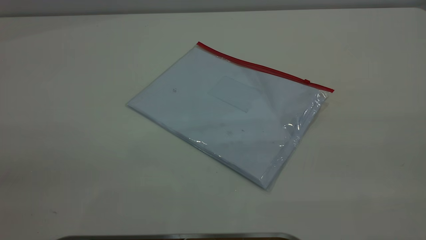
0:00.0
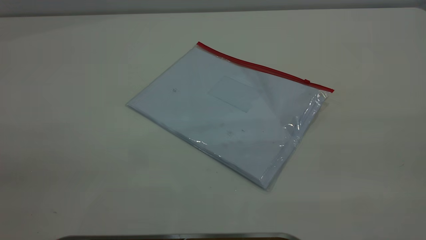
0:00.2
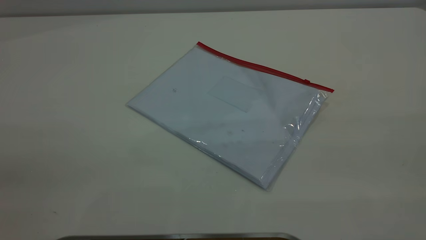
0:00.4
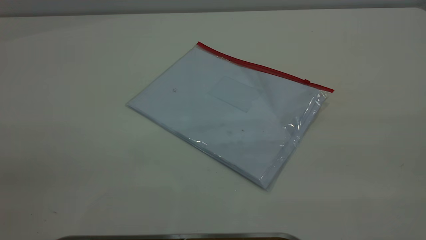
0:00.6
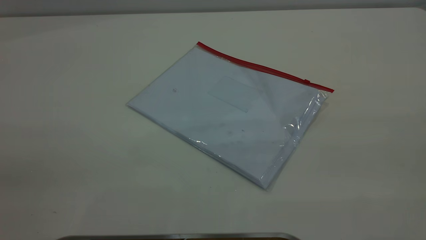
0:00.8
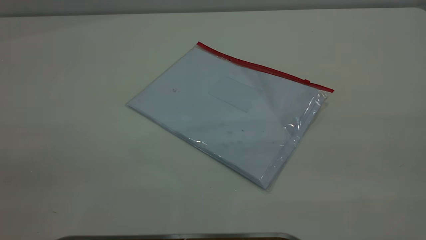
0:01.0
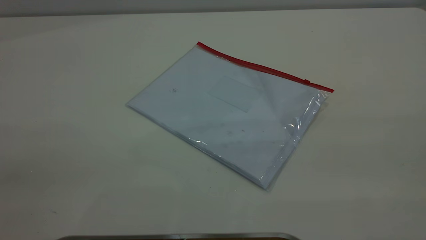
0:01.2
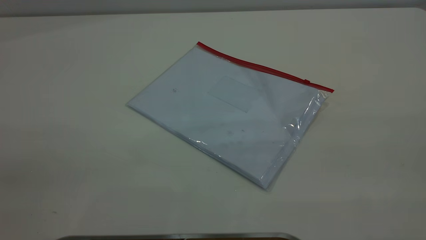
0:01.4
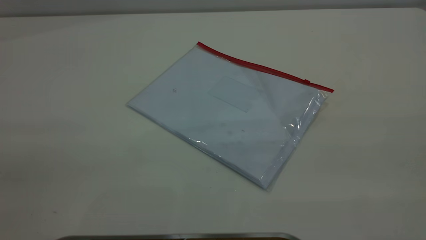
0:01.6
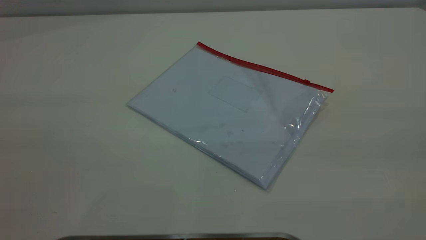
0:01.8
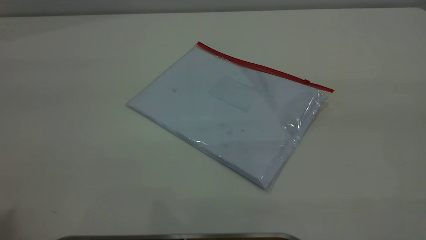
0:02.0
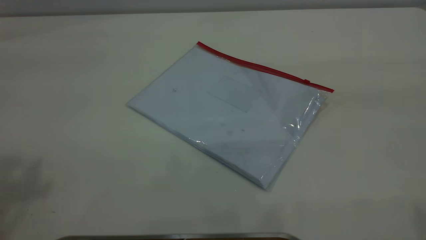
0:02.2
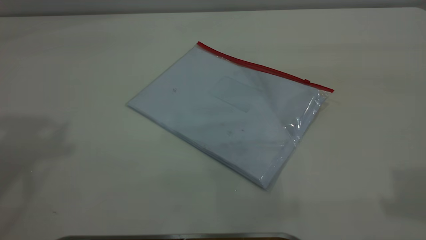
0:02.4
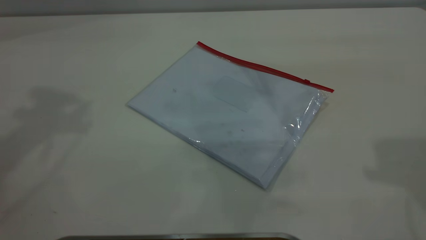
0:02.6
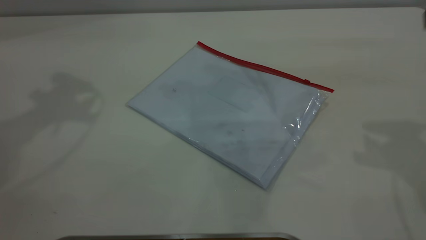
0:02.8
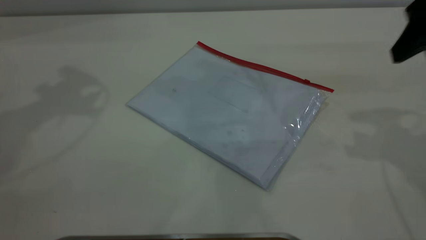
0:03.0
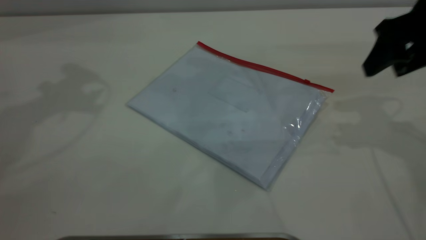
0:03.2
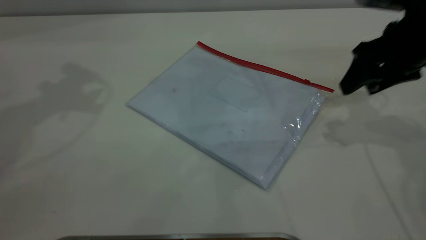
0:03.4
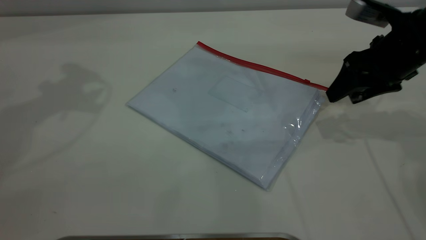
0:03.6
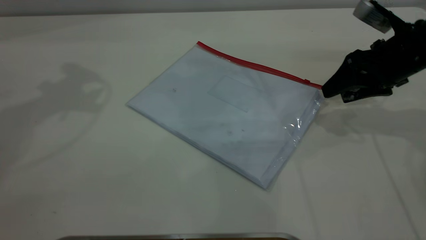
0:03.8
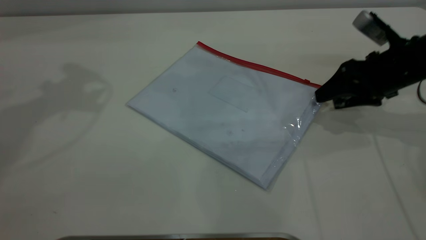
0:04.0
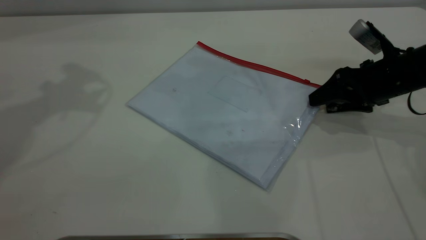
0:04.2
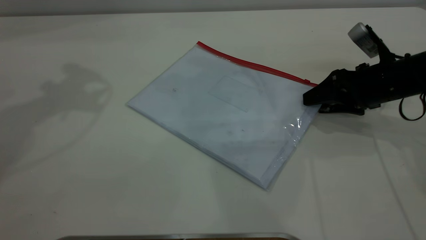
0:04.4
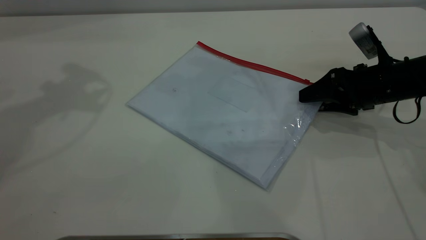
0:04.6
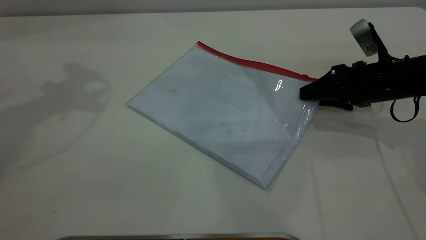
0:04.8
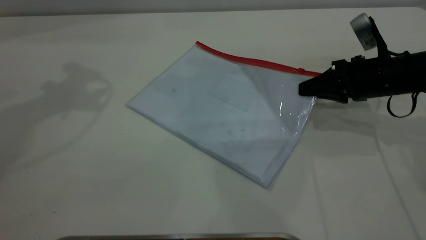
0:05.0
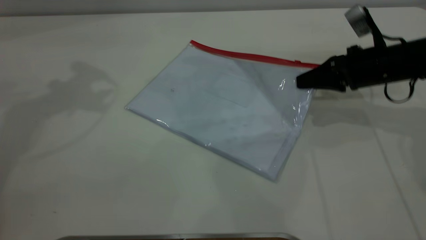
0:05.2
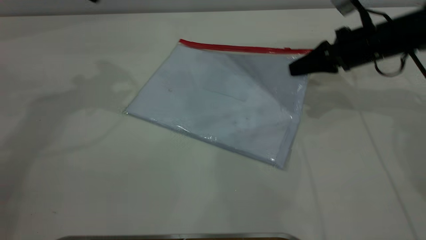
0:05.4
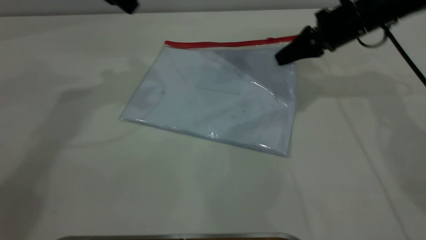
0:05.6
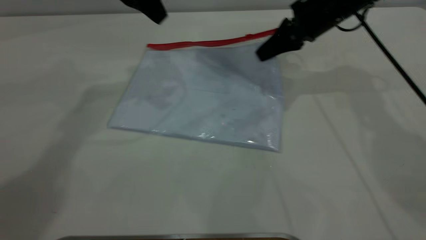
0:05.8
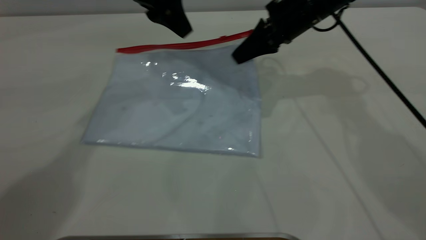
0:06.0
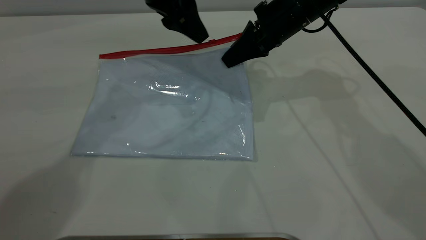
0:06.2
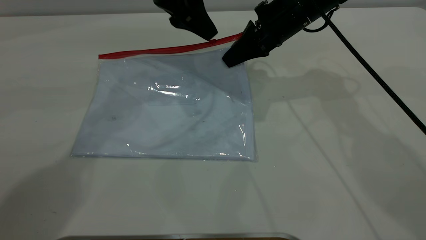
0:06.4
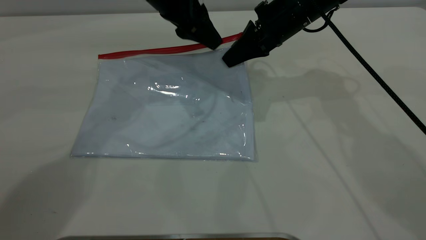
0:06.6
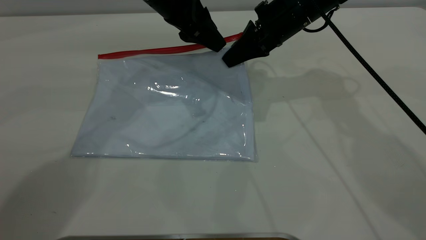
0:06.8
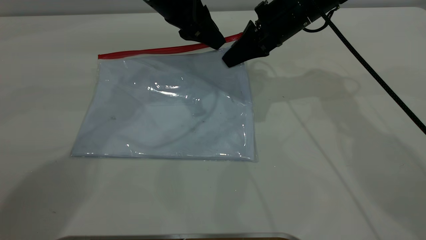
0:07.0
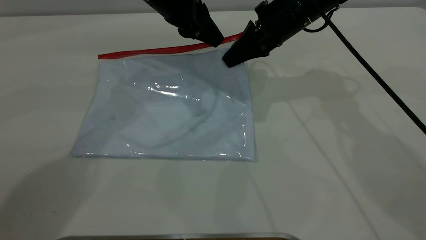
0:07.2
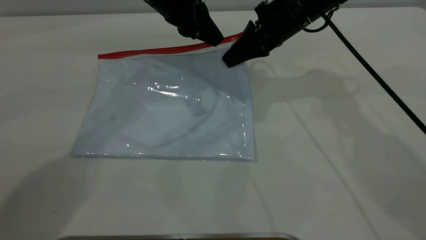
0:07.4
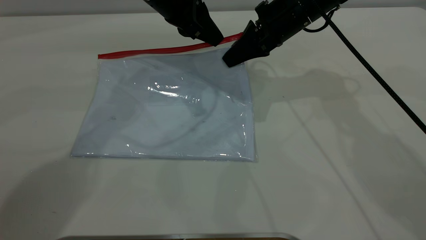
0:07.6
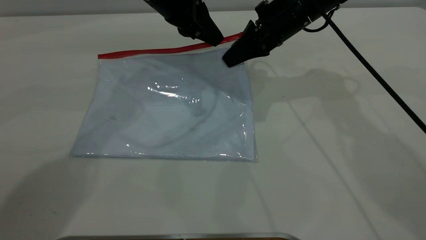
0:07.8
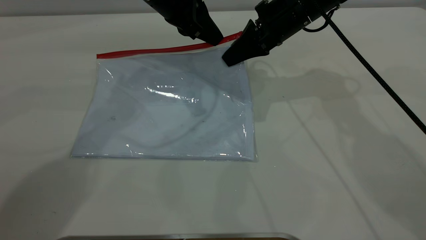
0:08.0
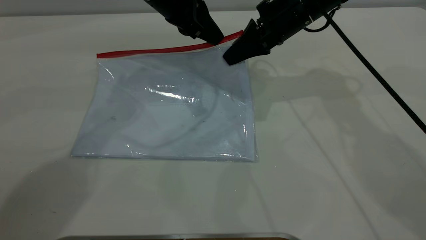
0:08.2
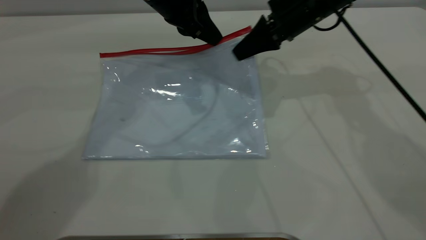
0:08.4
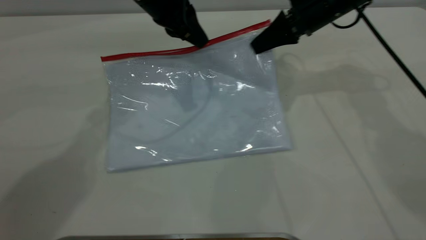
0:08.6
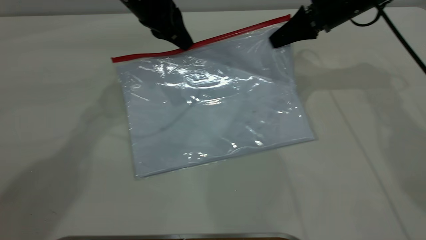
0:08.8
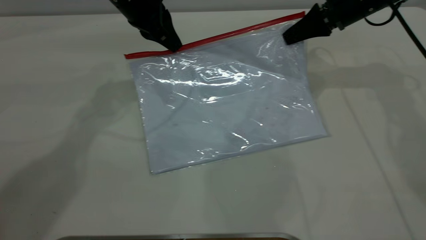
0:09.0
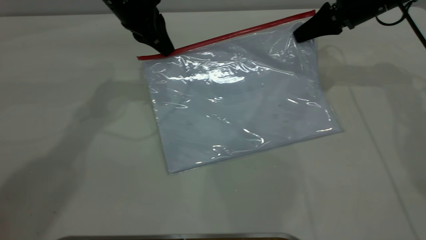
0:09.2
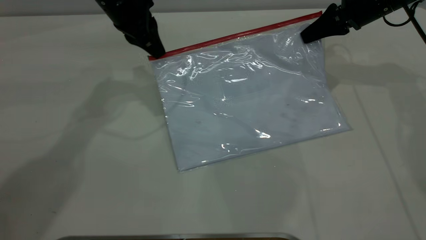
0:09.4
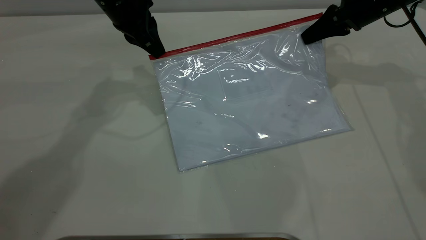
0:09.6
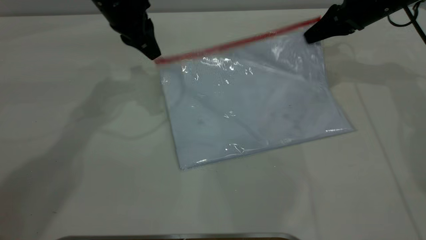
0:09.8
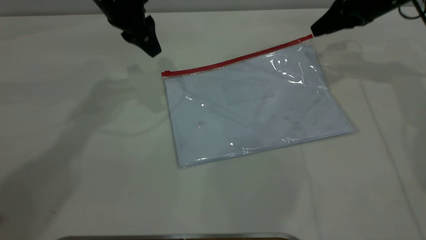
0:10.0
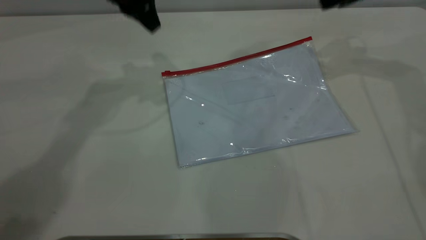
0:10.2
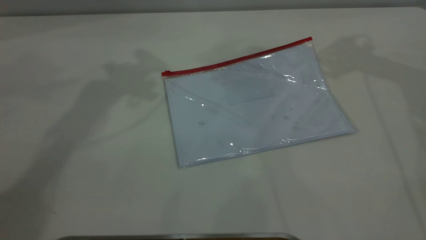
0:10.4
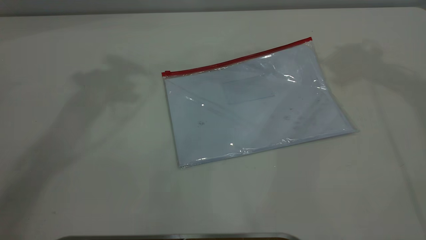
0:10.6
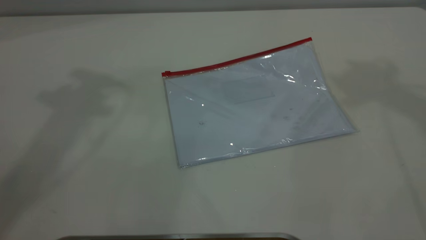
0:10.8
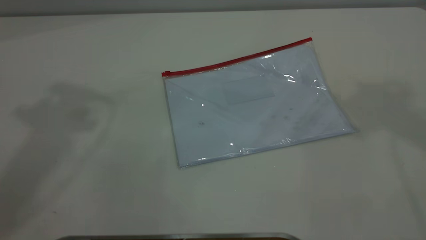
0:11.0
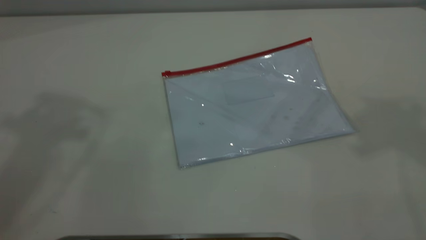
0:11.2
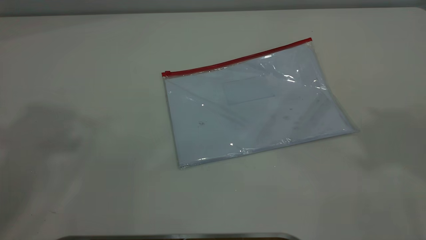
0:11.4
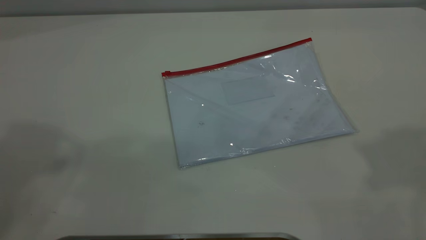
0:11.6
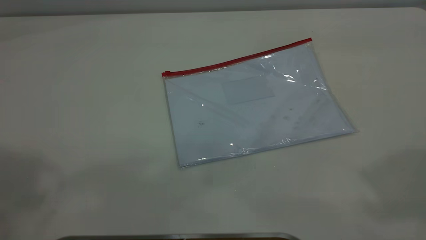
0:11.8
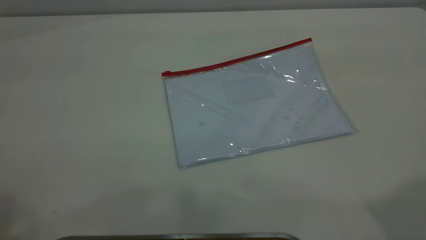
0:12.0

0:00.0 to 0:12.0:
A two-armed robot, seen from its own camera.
Step, 0:00.0 to 0:05.4: Pick up the transparent plastic bag with the right gripper.
Step, 0:05.8 to 0:09.6: Pulling up the zipper on the transparent plastic bag with the left gripper to close it.
Step, 0:10.0 to 0:10.4: Place the transparent plastic bag.
0:01.6 to 0:03.0: The right gripper moves forward and downward, some 35 cm.
0:03.0 to 0:04.4: The right gripper travels downward by about 20 cm.
0:04.4 to 0:06.0: The right gripper goes about 20 cm to the left, forward and upward, and closes, while the left gripper travels to the right and downward by roughly 20 cm.
0:06.0 to 0:07.6: The left gripper closes its fingers.
0:07.6 to 0:09.0: The right gripper is displaced to the right by some 10 cm; the left gripper ends up about 5 cm from where it was.
0:09.0 to 0:10.4: The grippers both shift upward by approximately 15 cm. The left gripper opens its fingers. Meanwhile the right gripper opens its fingers.

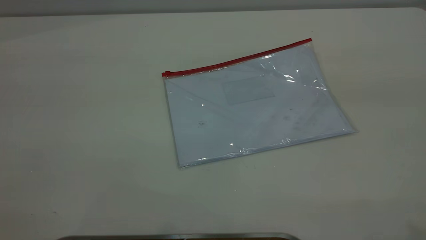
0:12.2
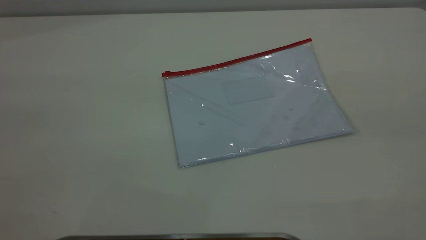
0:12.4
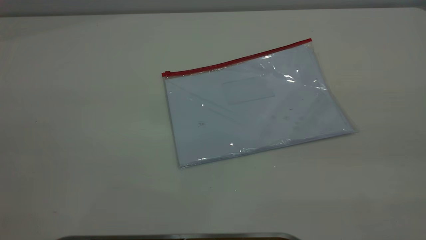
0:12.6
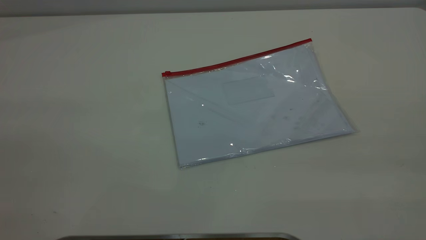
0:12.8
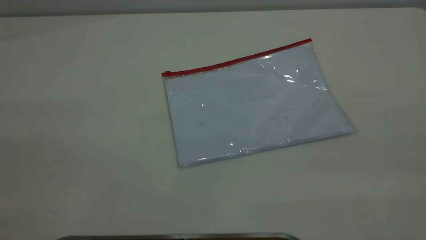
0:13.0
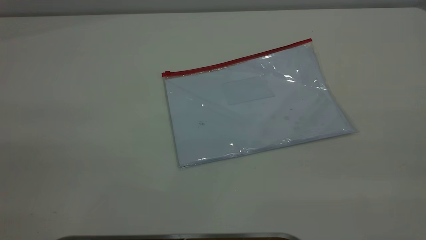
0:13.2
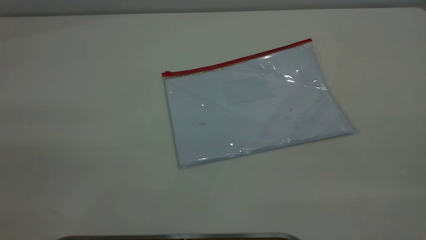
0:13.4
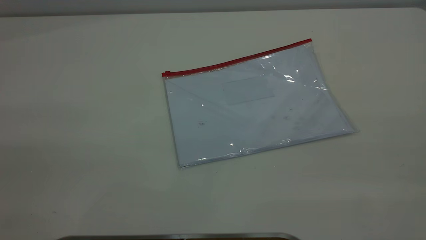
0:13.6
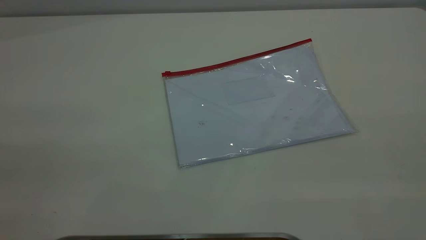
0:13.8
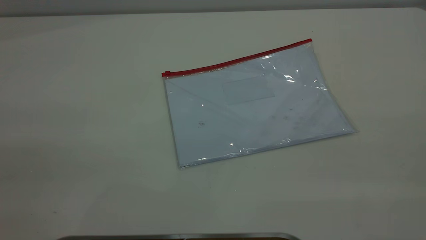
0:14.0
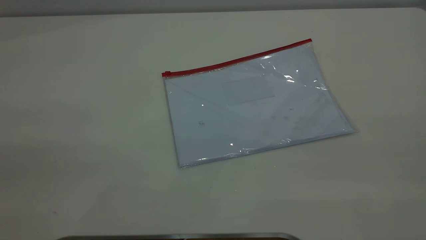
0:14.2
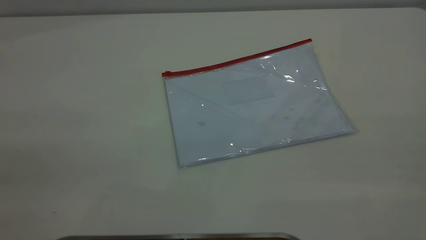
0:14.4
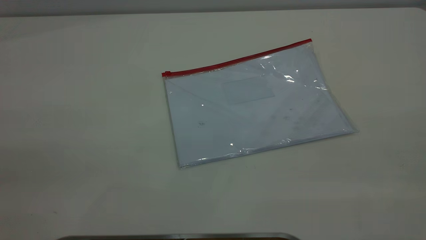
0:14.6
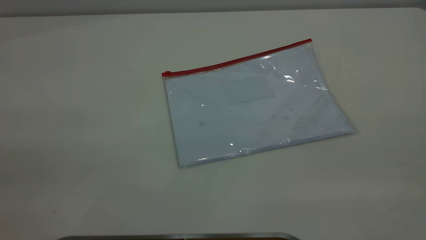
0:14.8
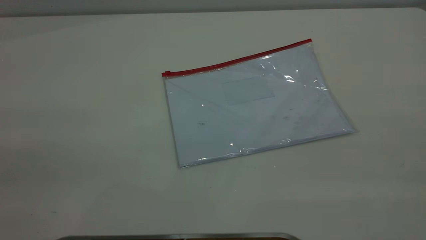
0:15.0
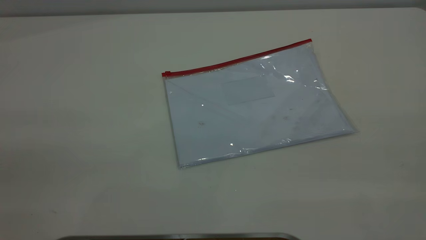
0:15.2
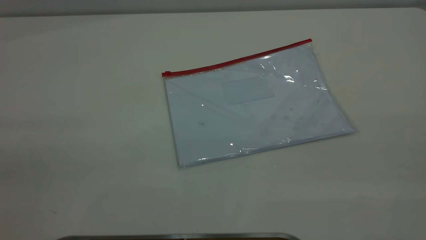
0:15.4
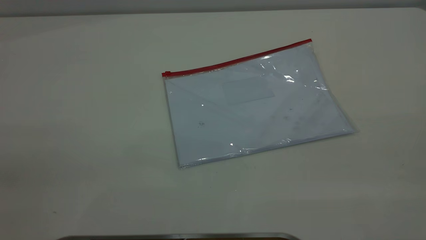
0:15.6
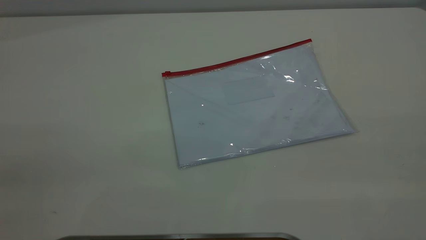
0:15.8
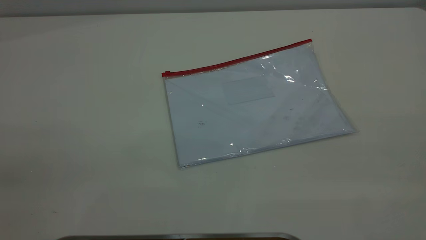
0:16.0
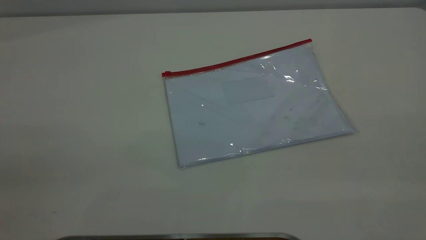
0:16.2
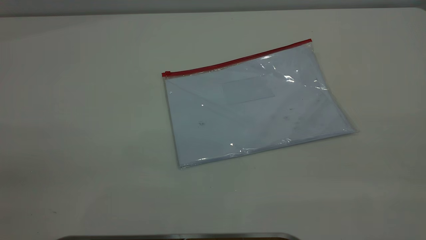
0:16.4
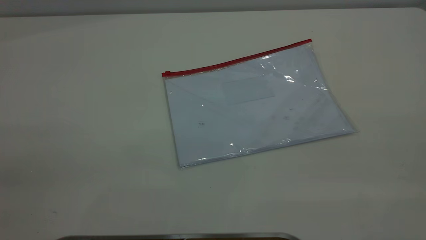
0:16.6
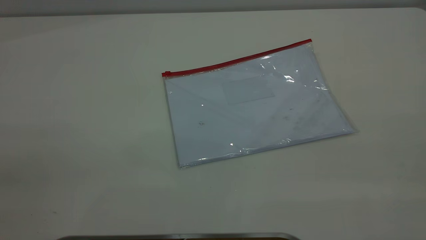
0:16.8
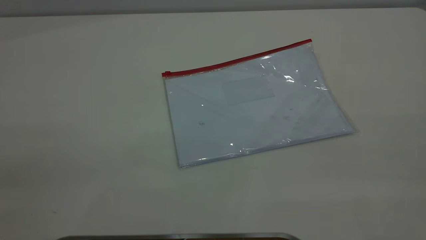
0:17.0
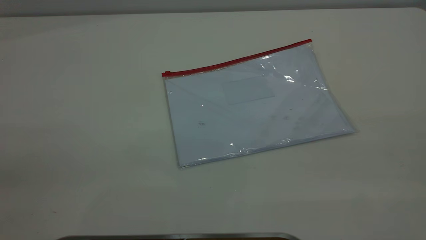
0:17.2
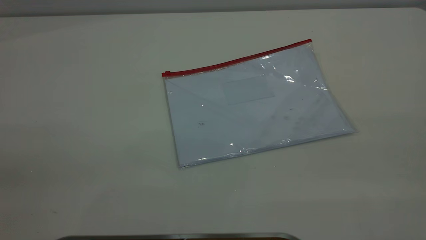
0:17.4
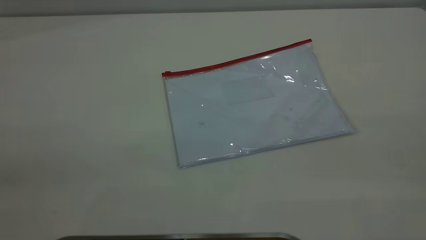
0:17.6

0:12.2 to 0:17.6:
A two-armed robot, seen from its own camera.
0:13.6 to 0:15.0: Both grippers stay about where they are.
0:16.2 to 0:17.6: Both grippers stay put.
